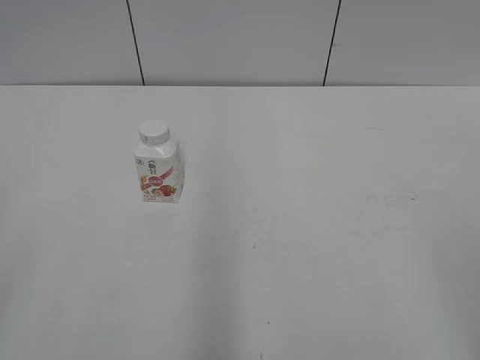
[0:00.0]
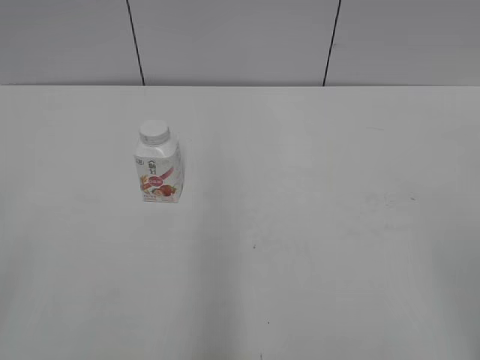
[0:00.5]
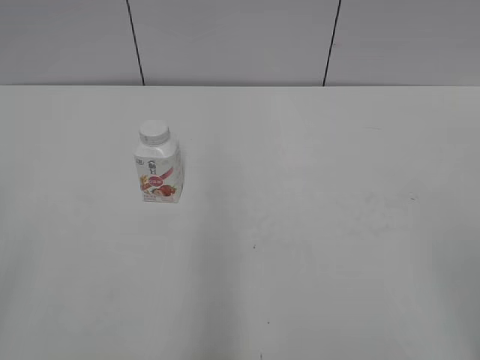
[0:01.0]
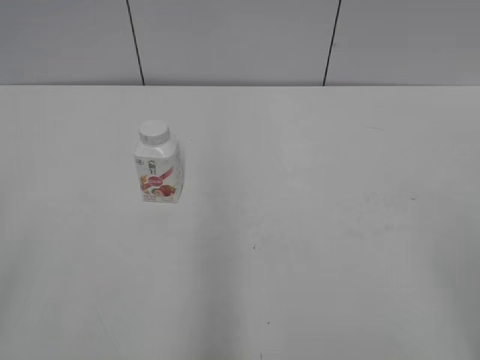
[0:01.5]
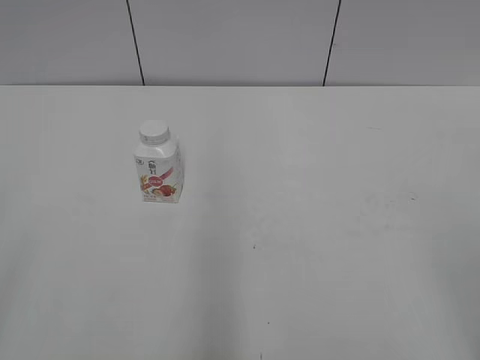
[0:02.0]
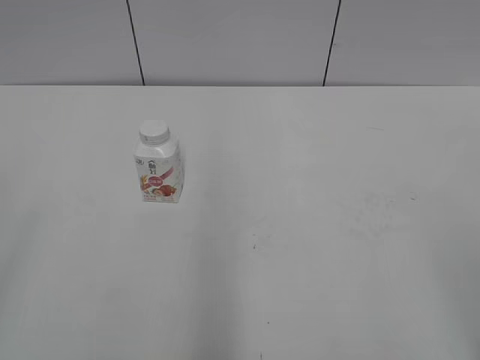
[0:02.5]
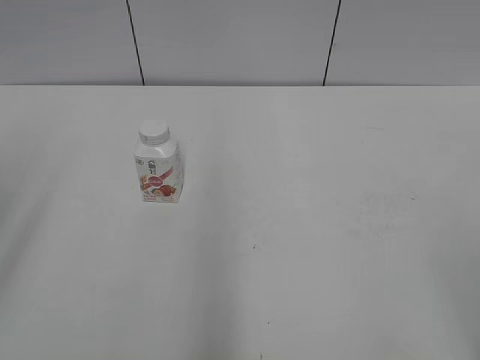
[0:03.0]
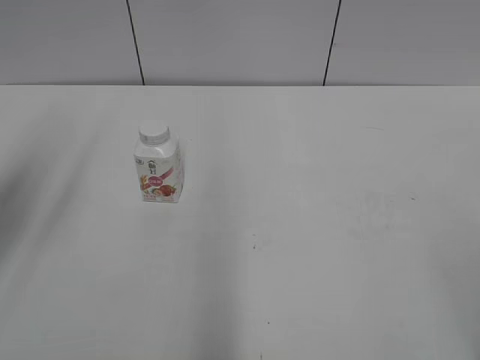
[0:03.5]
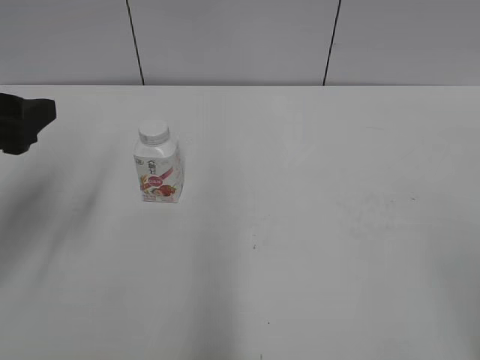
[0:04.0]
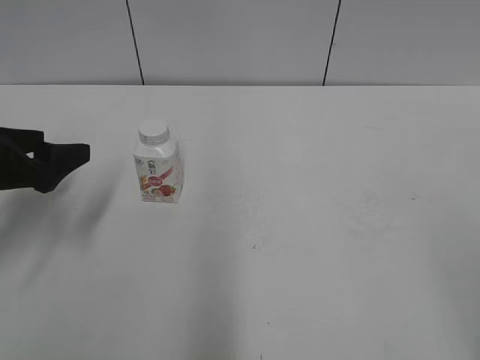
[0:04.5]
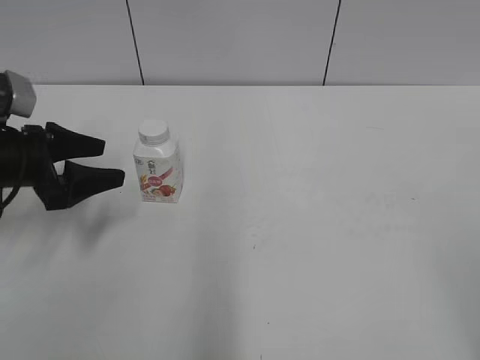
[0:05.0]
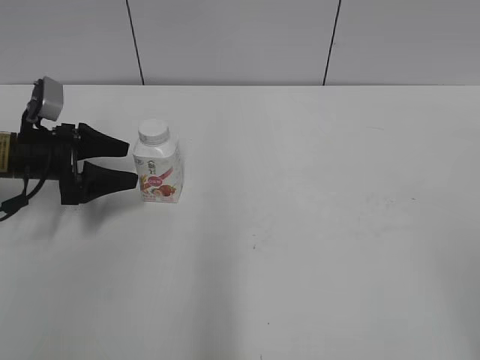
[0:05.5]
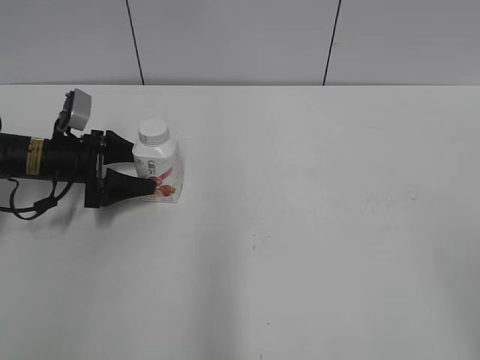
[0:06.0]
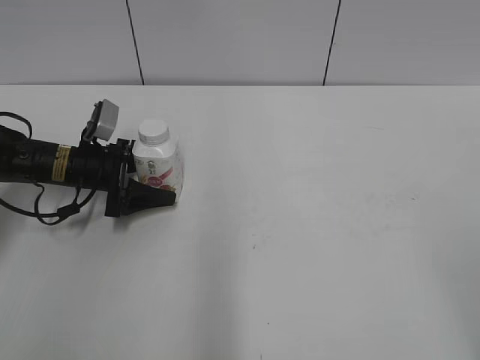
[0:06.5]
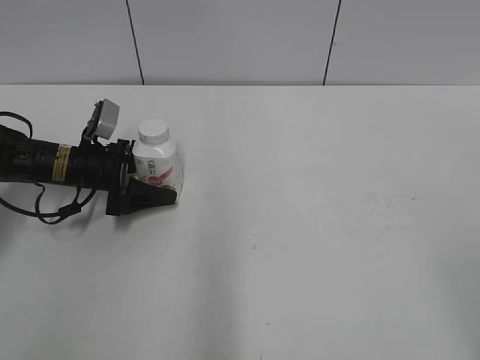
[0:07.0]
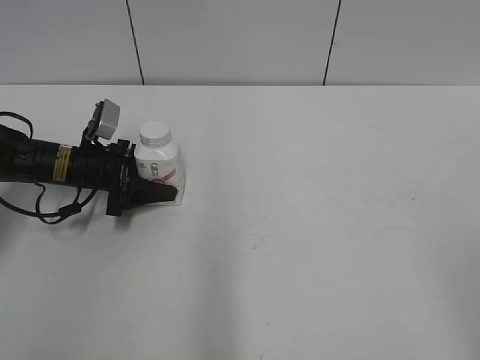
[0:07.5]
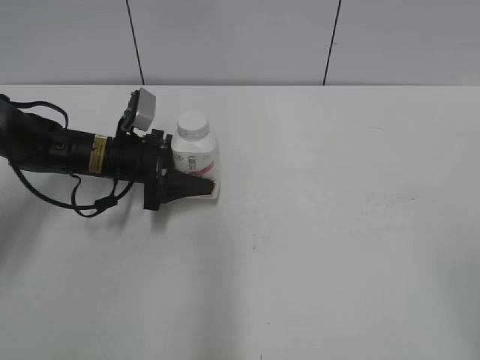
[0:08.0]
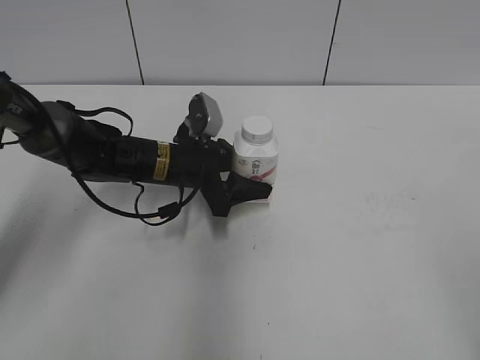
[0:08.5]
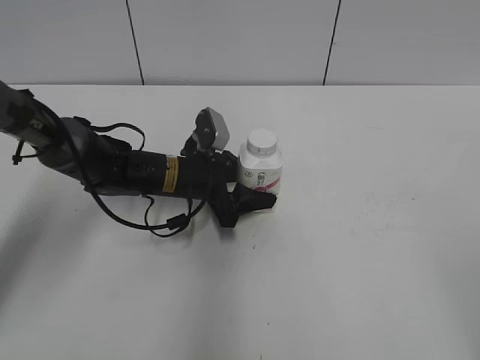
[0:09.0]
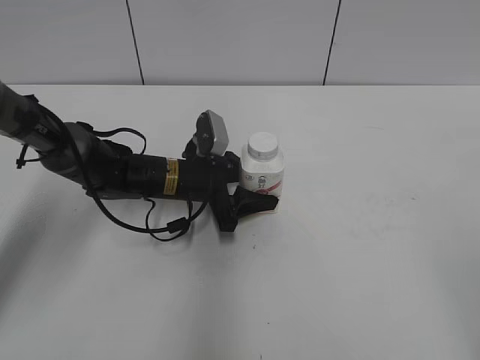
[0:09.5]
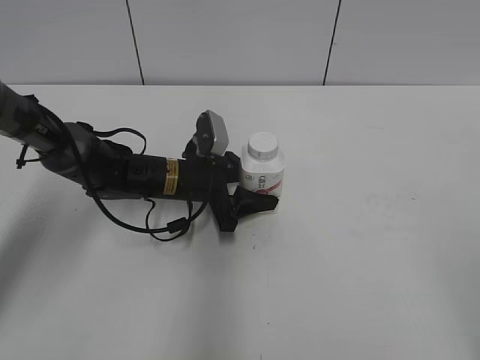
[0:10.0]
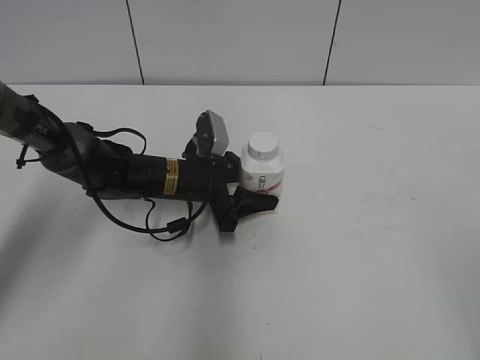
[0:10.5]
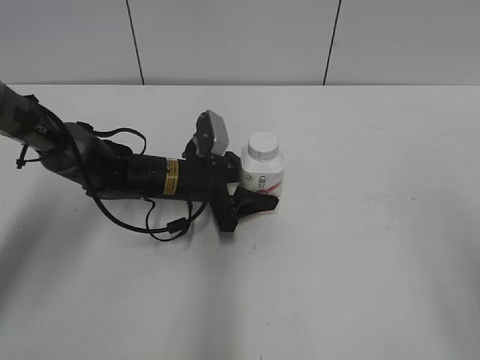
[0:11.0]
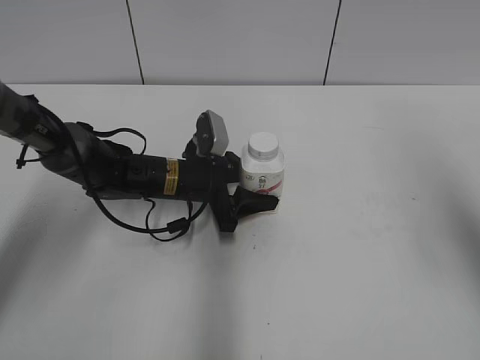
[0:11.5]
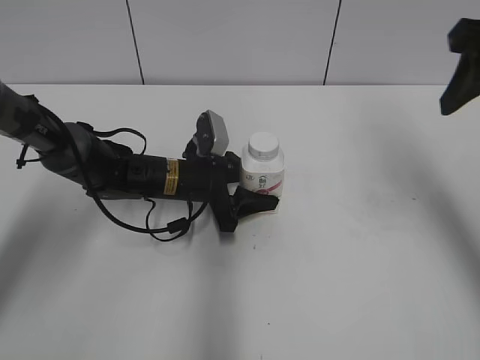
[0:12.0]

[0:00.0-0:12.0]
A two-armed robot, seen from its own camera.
Step, 0:00.0 to 0:07.5: Grab the Yili Changqing with the left hand.
Step, 0:08.0 to 0:10.5: Move the Yili Changqing from left to right.
0:02.0 to 0:04.0: The left gripper moves forward, roughly 25 cm.
0:04.0 to 0:06.0: The left gripper heads downward and forward, covering some 25 cm.
0:06.0 to 0:08.0: The left gripper shifts roughly 10 cm to the right, and closes.
0:08.0 to 0:10.0: The left gripper travels to the right by some 10 cm.
0:10.0 to 0:12.0: The right gripper travels forward by about 30 cm, and closes its fingers.

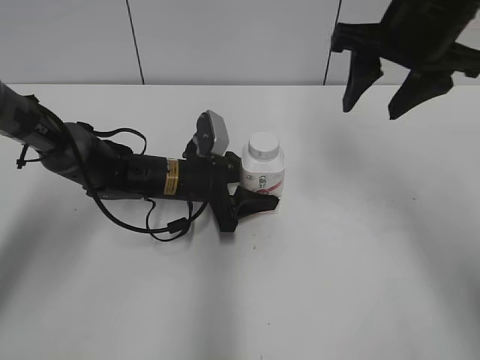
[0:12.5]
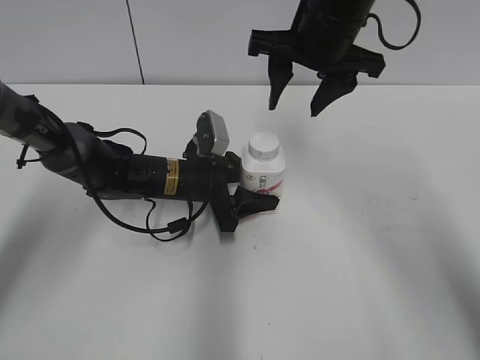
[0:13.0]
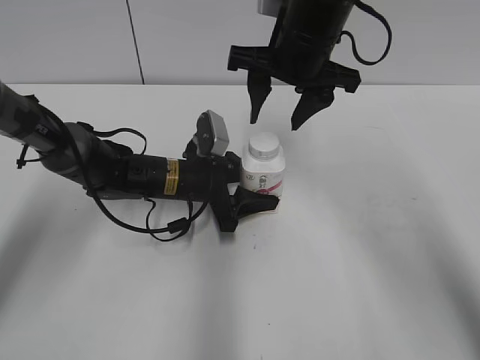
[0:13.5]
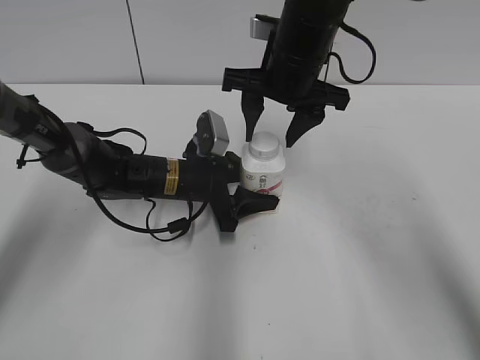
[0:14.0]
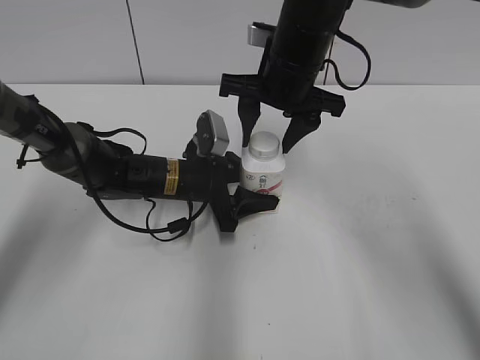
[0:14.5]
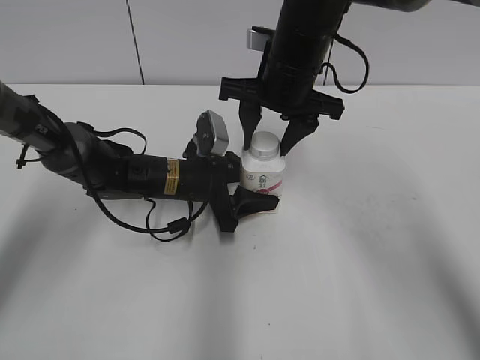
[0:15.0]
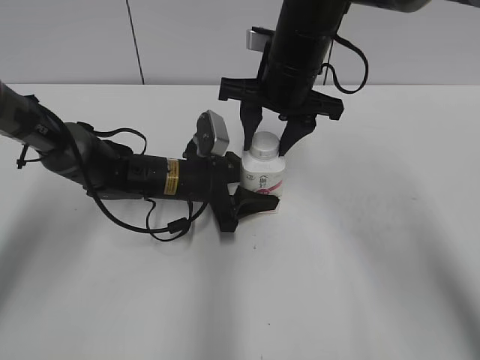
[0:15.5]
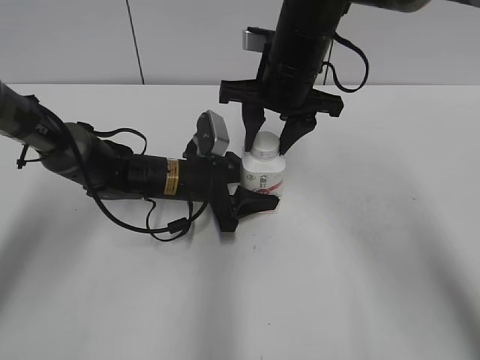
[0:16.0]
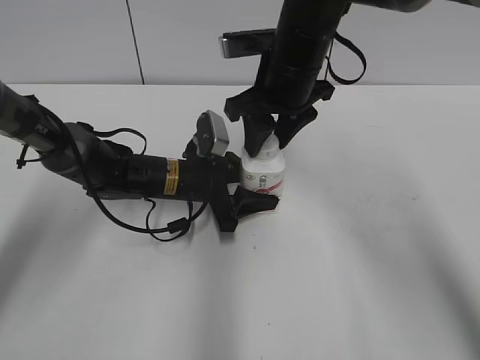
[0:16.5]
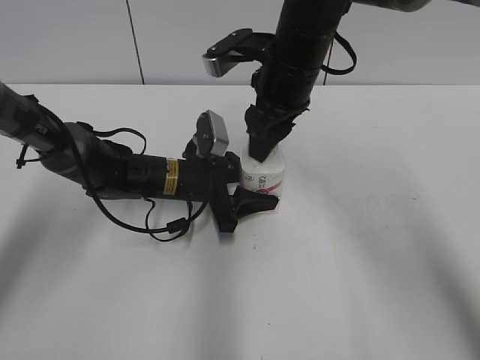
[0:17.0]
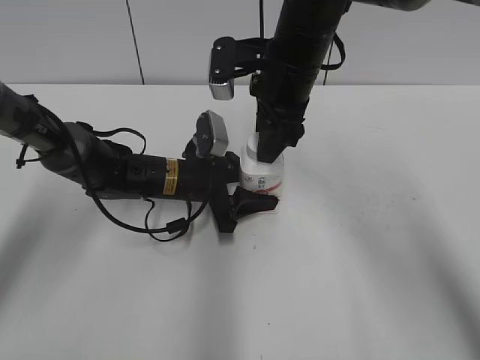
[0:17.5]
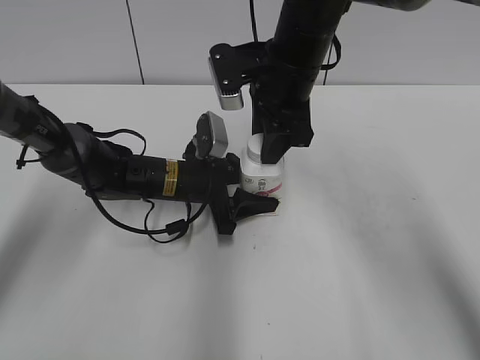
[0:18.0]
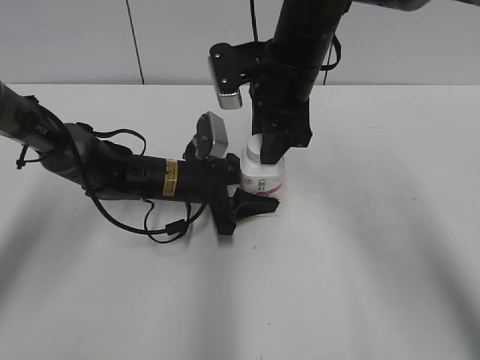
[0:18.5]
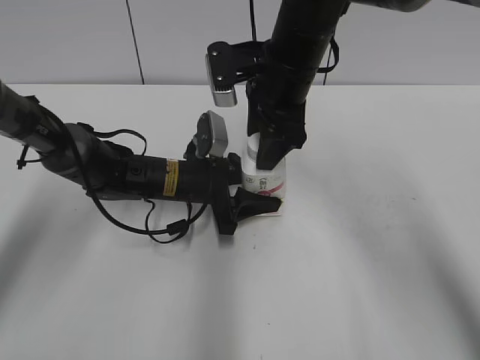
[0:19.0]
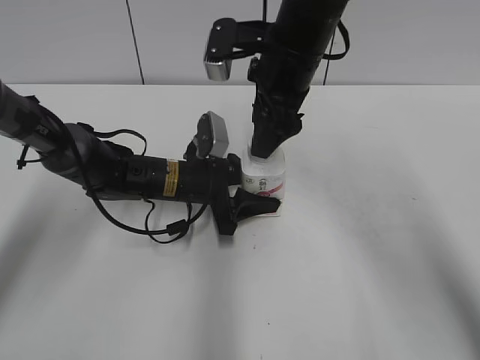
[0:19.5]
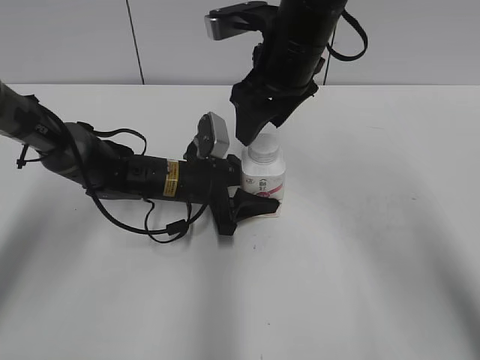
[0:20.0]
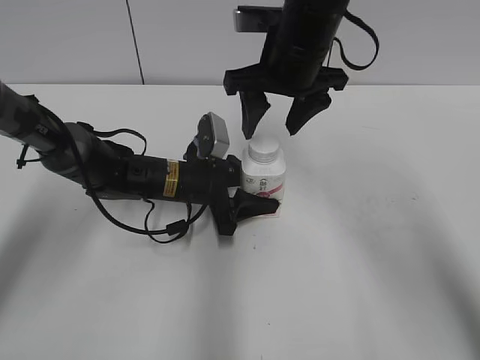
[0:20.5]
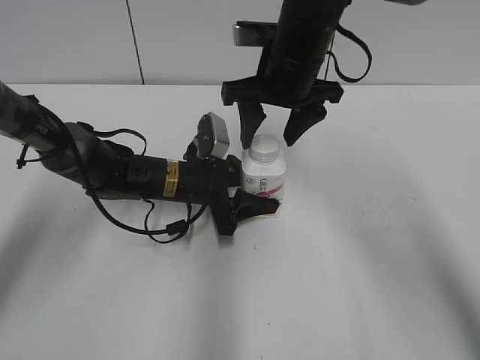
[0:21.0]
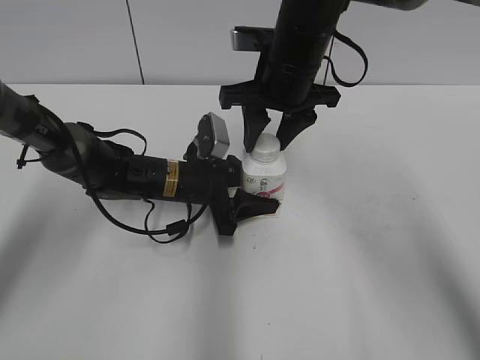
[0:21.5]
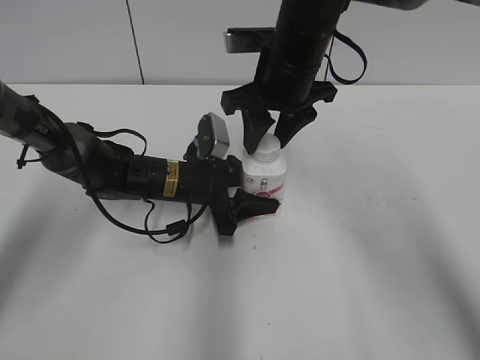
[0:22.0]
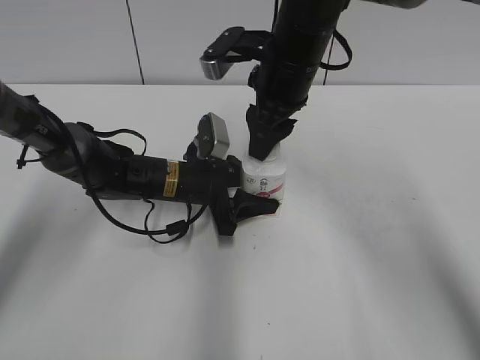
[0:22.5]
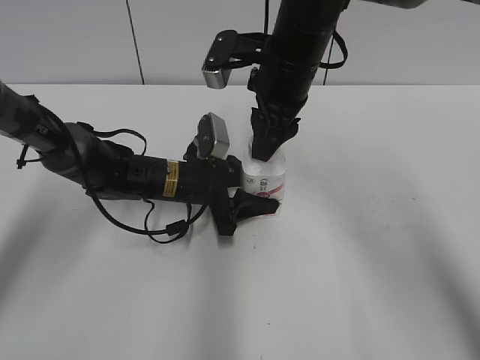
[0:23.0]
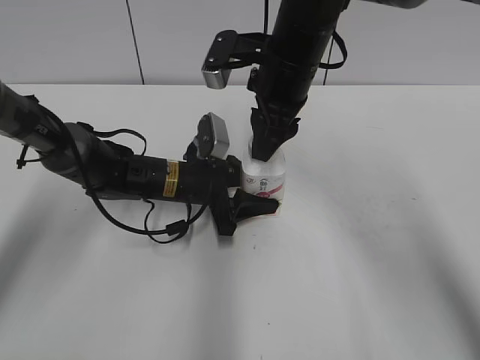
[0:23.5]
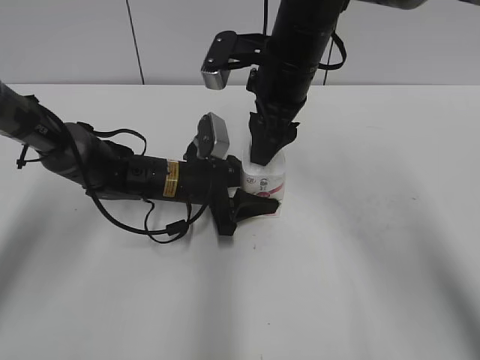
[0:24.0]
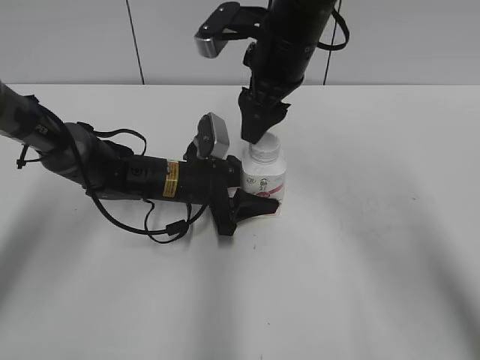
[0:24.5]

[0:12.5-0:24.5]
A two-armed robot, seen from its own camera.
0:12.5 to 0:14.5: The right gripper travels to the left and downward by roughly 15 cm.
0:14.5 to 0:16.5: The right gripper closes.
0:18.5 to 0:20.5: The right gripper opens up.
0:20.5 to 0:22.5: The right gripper closes its fingers.
0:22.5 to 0:24.5: The right gripper opens its fingers.

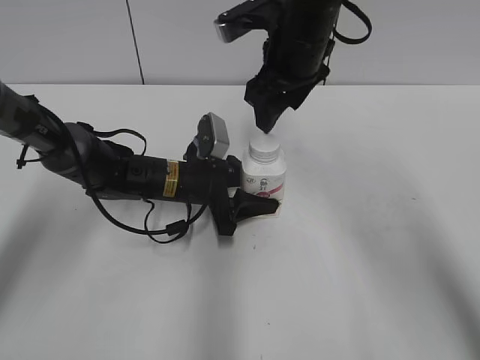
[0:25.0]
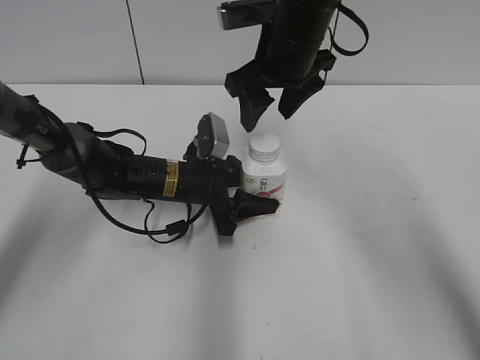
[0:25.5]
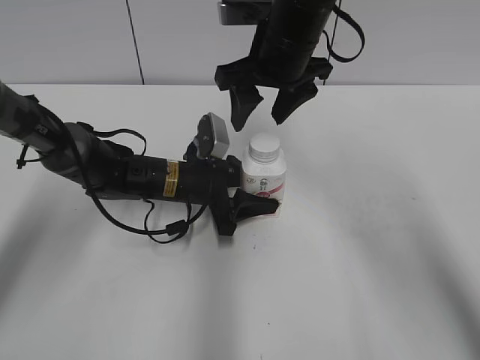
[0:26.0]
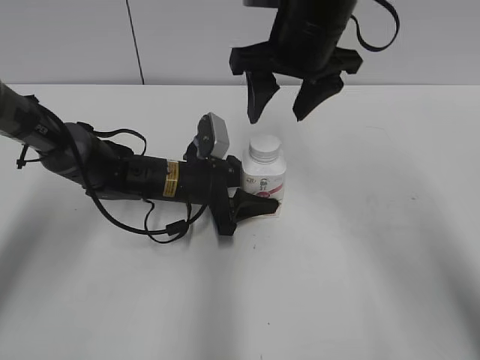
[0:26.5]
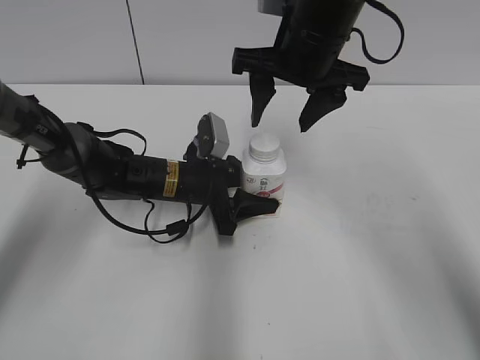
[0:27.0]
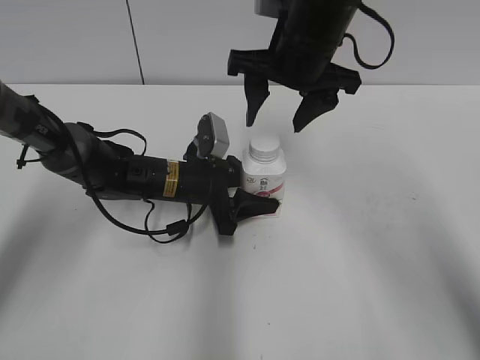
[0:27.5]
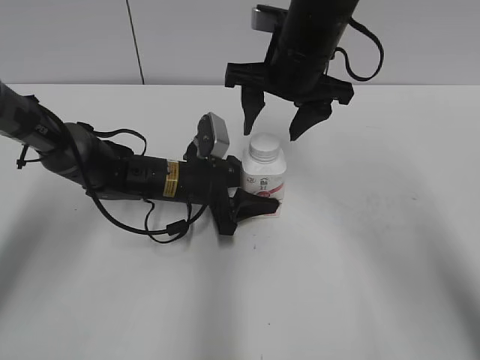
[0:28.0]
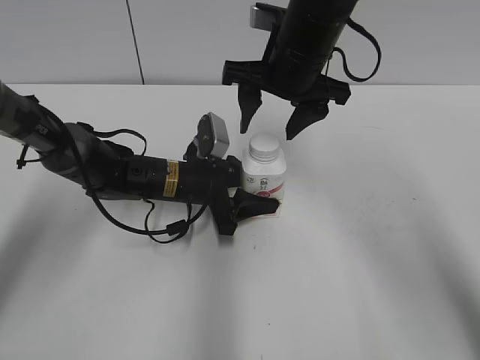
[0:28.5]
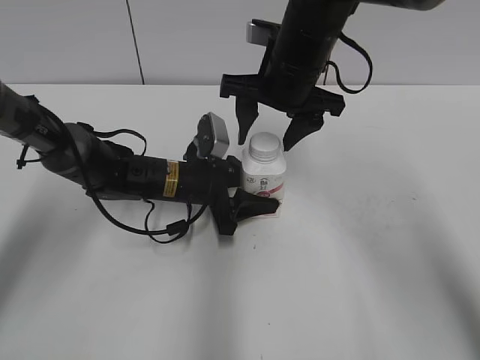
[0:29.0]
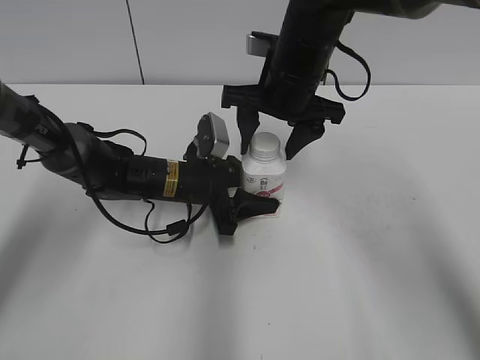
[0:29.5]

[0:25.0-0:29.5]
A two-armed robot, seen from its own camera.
0:27.0 to 0:29.5: The right gripper is displaced downward by approximately 5 cm.
